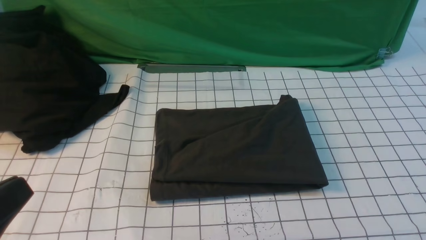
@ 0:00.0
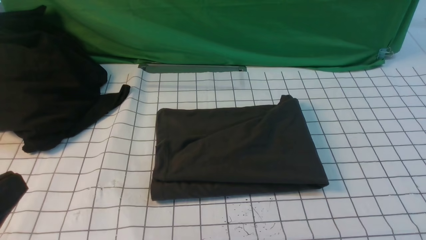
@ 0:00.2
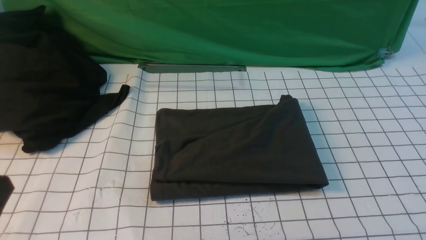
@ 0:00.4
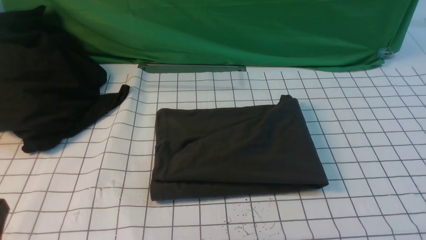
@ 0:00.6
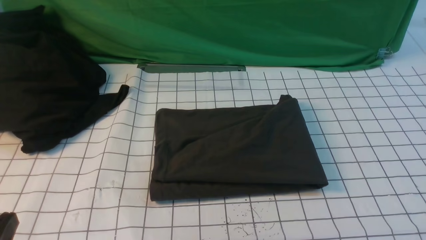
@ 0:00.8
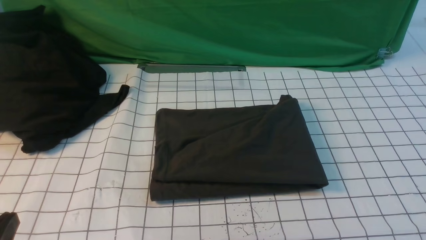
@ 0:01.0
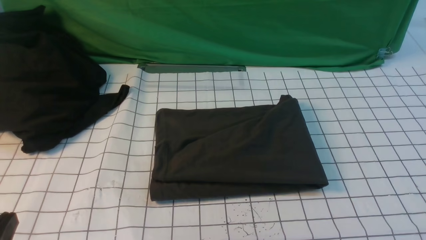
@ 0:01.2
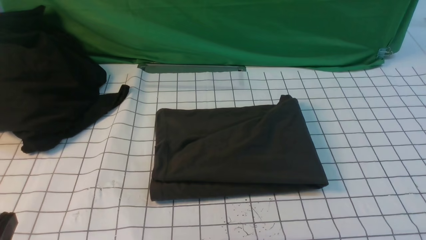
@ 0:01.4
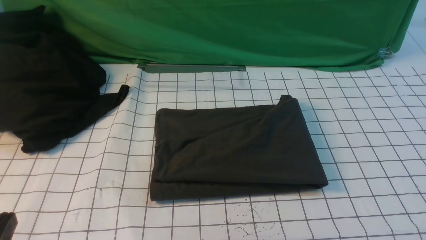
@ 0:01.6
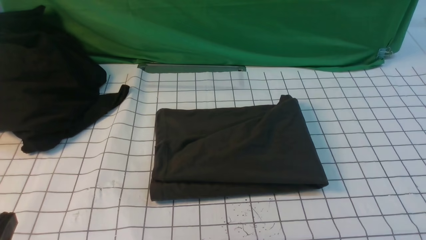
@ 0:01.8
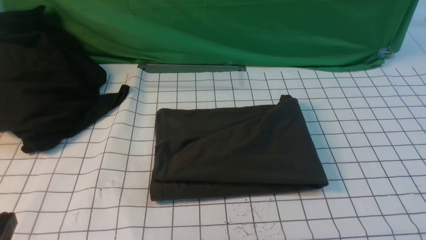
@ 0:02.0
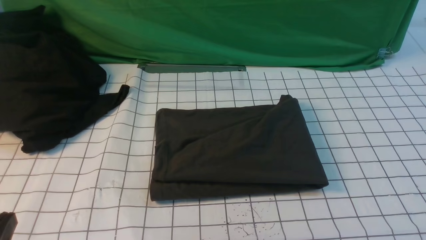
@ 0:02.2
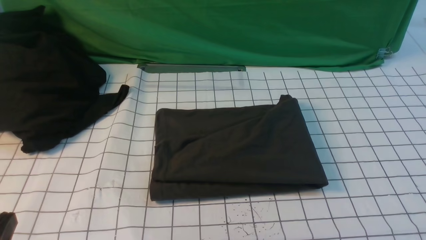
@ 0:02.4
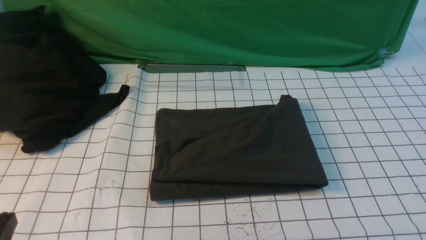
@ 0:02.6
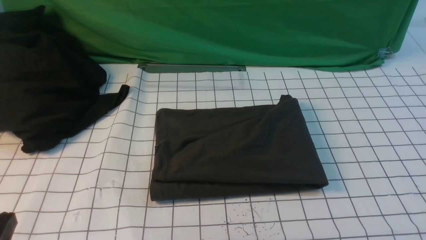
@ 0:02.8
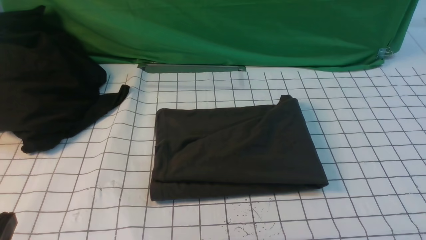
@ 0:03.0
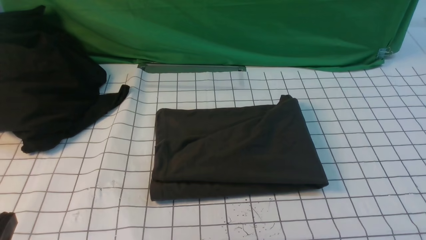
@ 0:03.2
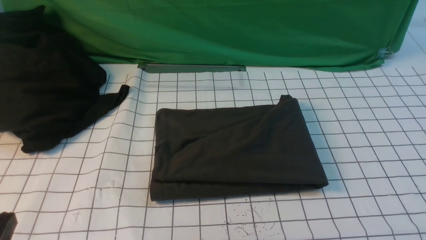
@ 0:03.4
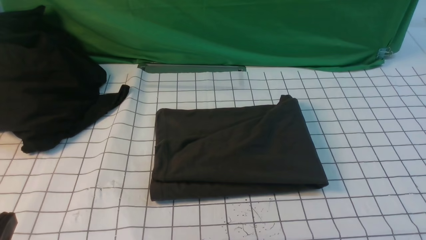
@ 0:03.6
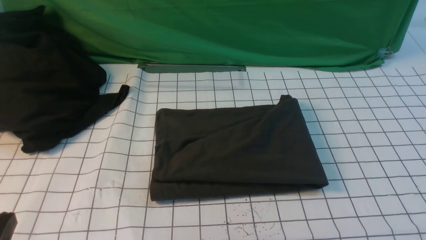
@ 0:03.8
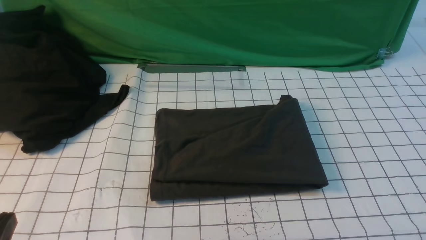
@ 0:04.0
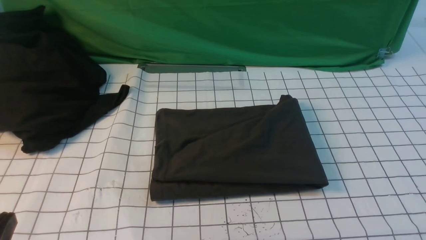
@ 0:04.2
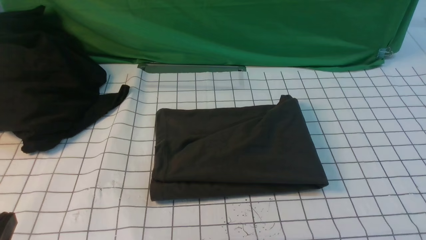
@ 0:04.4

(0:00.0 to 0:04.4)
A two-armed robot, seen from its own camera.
0:00.0 - 0:01.4: The left gripper moves downward, approximately 10 cm.
0:03.0 - 0:04.4: Neither gripper changes place.
